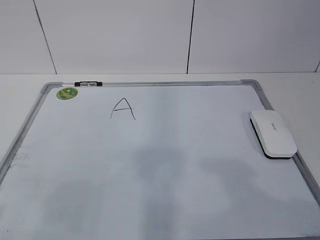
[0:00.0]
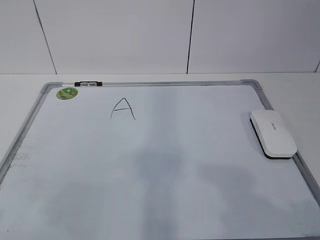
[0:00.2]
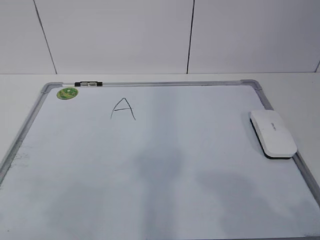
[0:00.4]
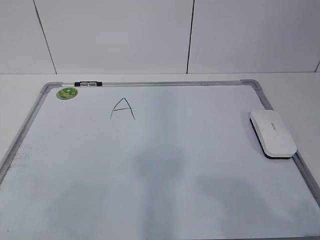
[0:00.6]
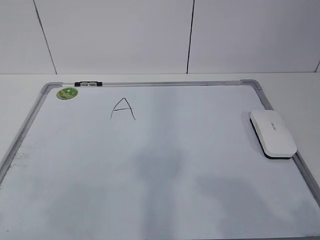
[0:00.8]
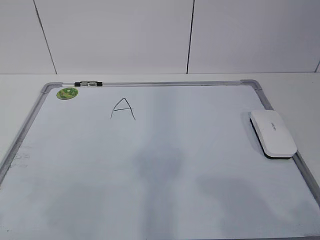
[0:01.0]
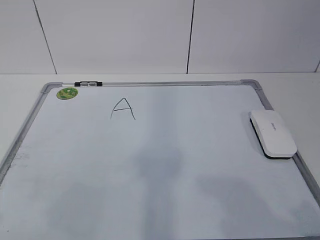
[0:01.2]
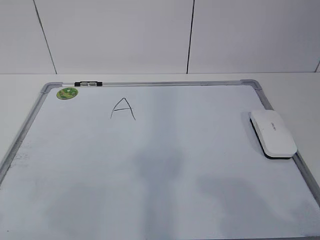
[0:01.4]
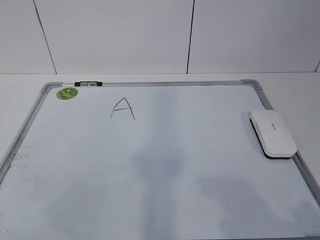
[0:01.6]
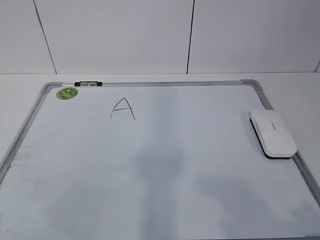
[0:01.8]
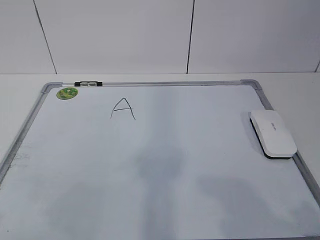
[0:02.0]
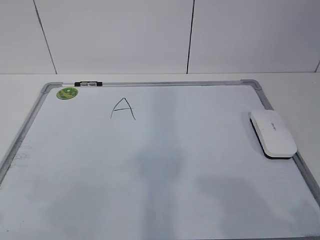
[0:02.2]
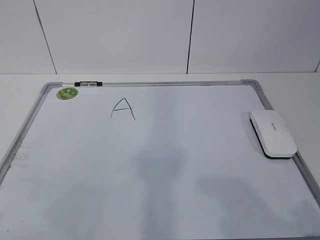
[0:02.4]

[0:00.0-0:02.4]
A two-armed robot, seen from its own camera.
Task of the whole recording: pick up the eraser on the blackboard and erase the letter "a".
0:01.2 to 0:02.4: Both grippers stay about where they are.
